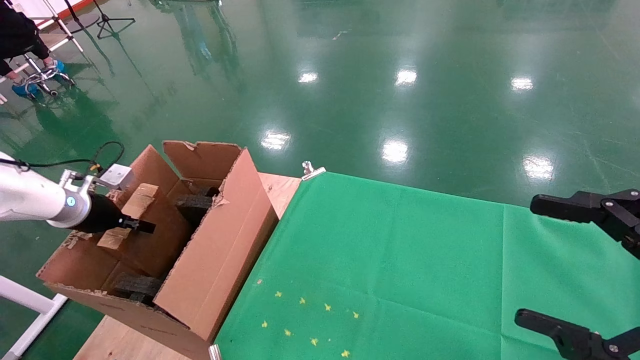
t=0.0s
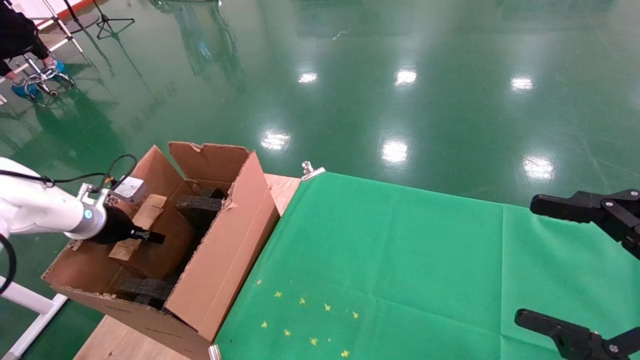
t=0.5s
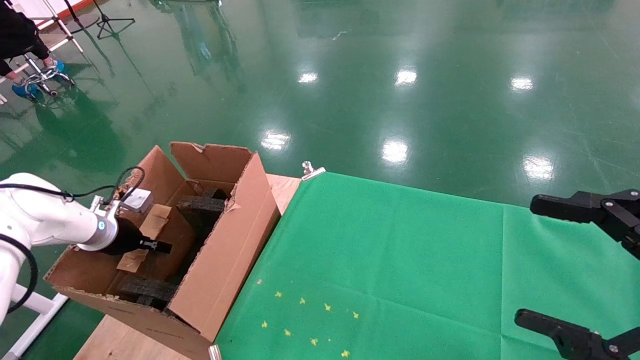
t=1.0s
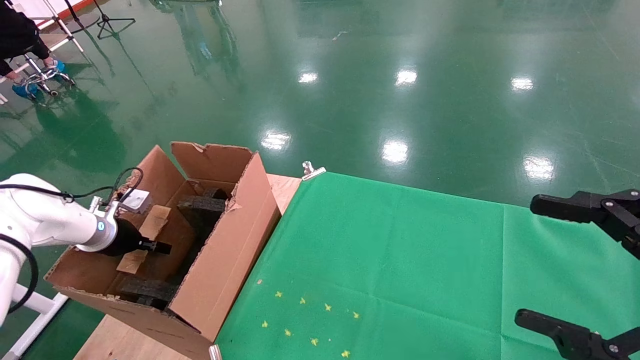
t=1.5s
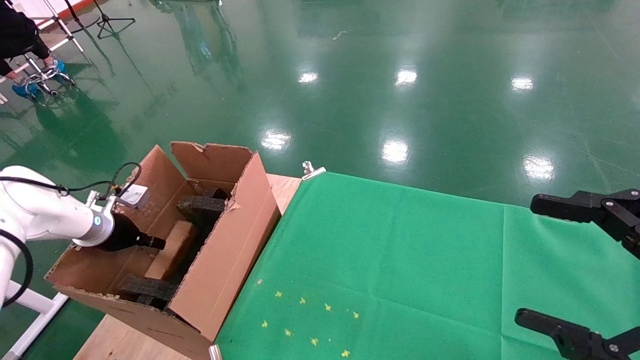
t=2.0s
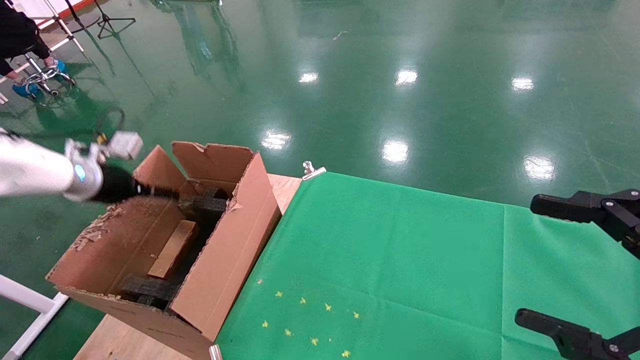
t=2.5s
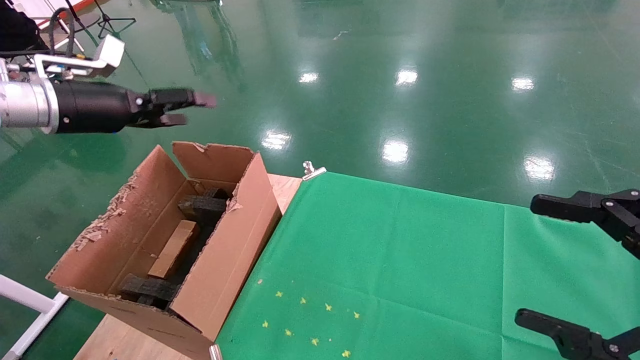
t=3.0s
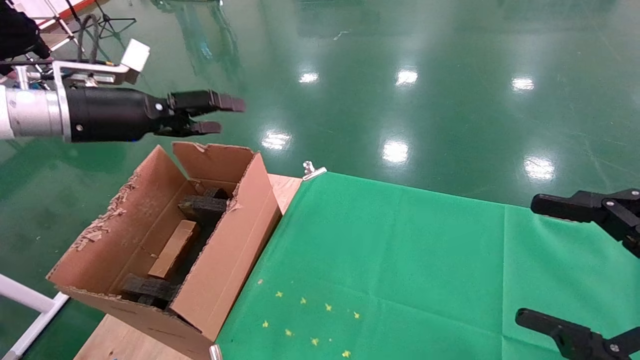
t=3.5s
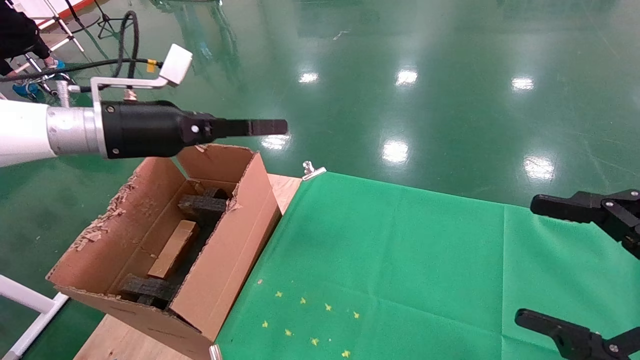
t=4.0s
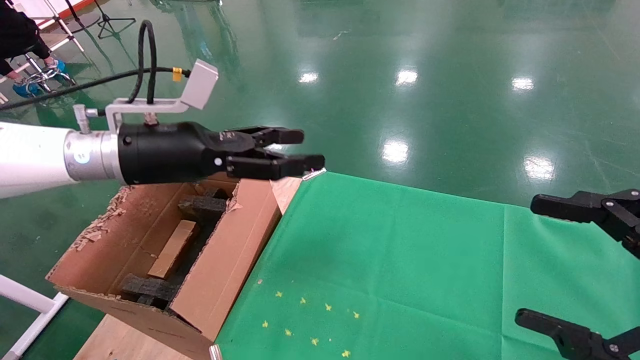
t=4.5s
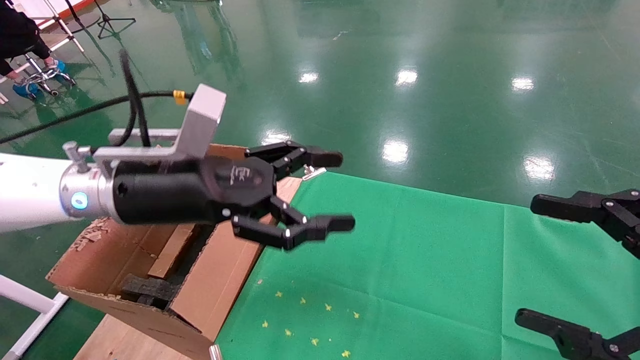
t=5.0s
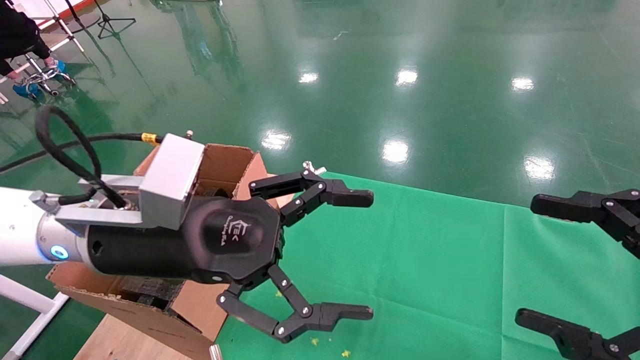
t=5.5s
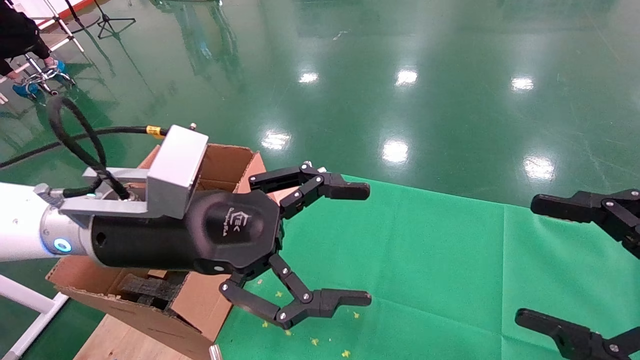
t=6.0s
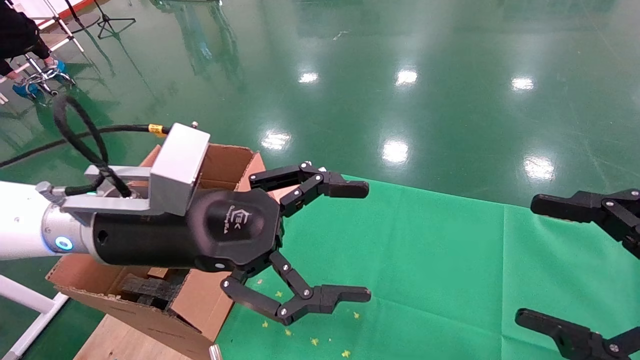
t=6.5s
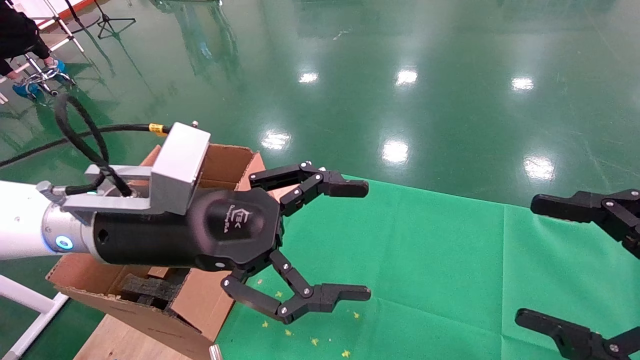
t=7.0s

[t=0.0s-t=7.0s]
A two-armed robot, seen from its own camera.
Task of the whole recording: using a robotic arm to pick up a cardboard box and palace it the carton.
Step, t=0.0s to t=2.5s: Place the mouse and the power cord paper box into the container.
t=0.0s to t=2.0s: The left gripper opens its fingers.
t=2.0s to t=3.5s: The left gripper moves upward and to the right, about 25 cm, and opens up.
t=3.5s to t=5.0s: The left gripper moves to the right and backward, roughly 20 cm.
t=5.0s to t=7.0s: The grippers stay close to where they were, moving slightly.

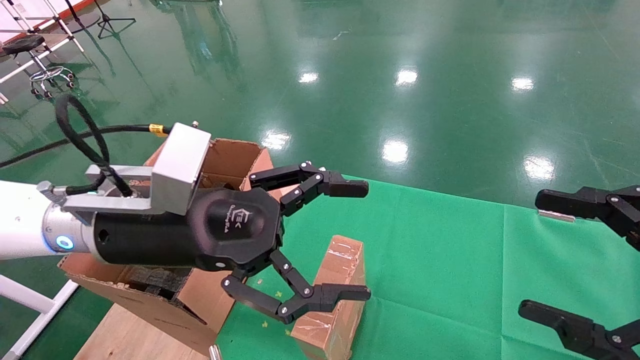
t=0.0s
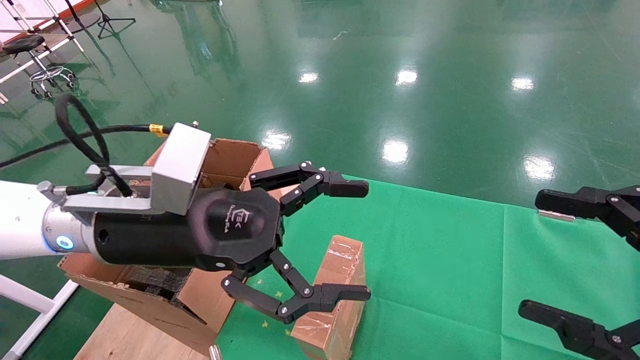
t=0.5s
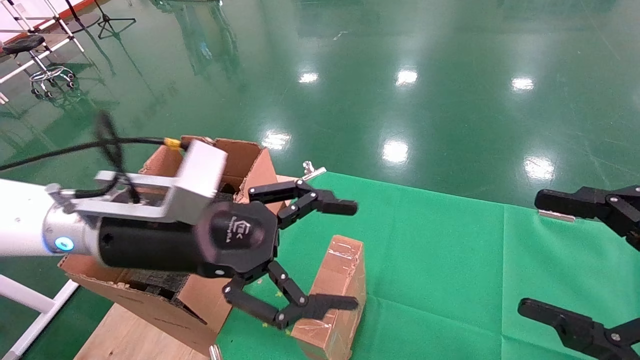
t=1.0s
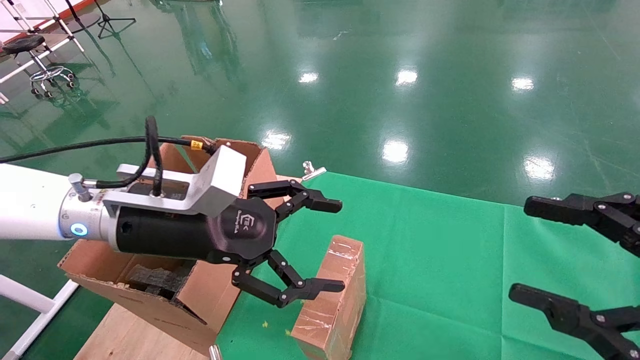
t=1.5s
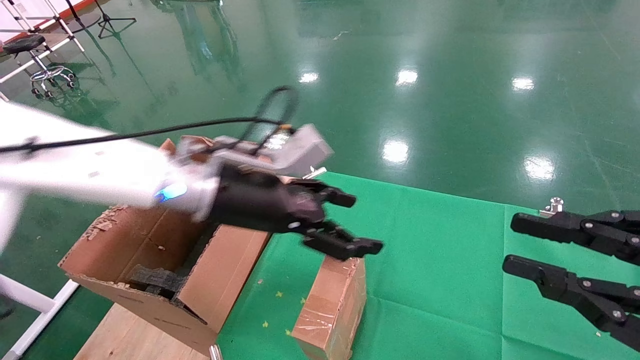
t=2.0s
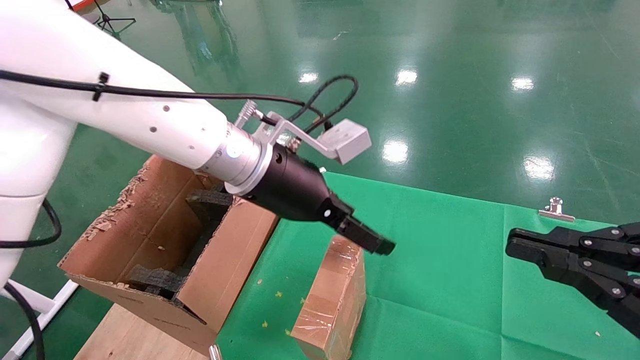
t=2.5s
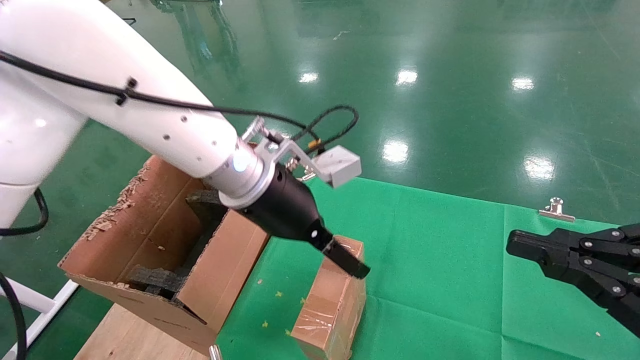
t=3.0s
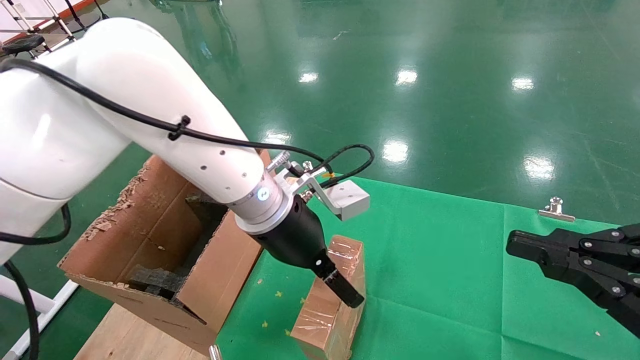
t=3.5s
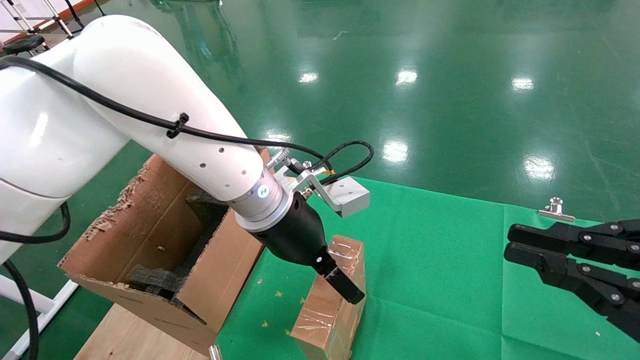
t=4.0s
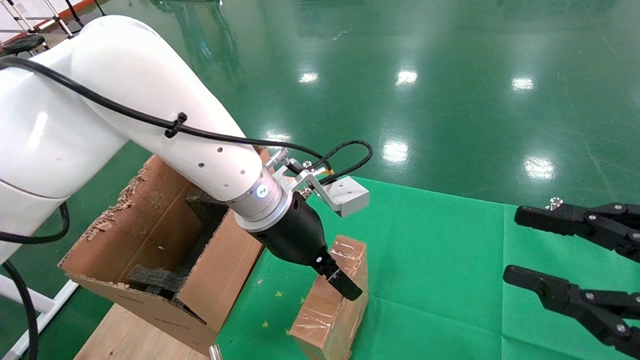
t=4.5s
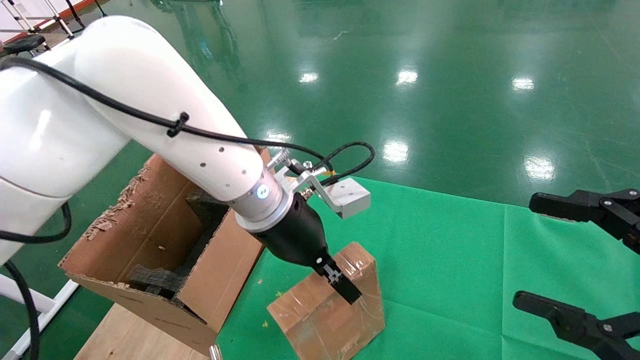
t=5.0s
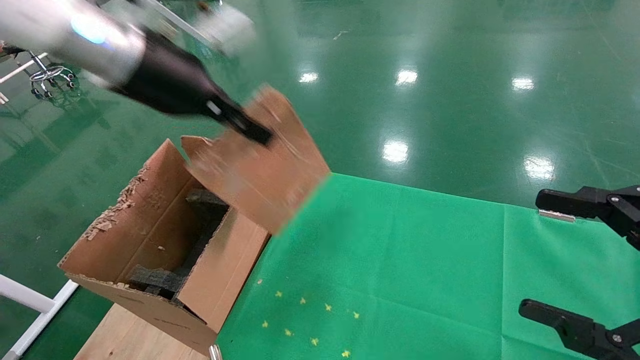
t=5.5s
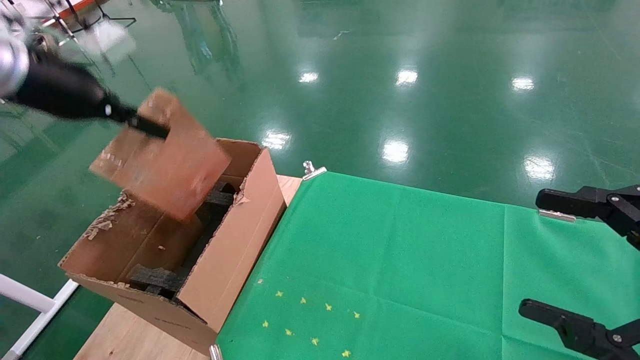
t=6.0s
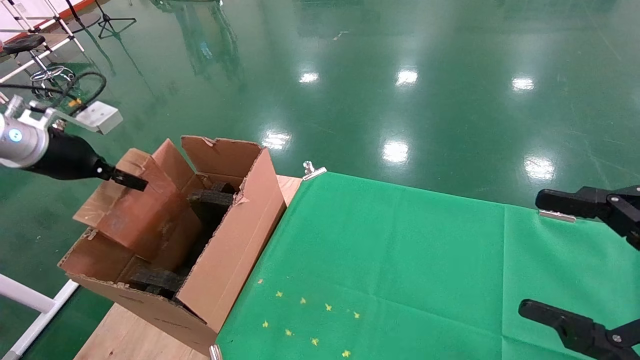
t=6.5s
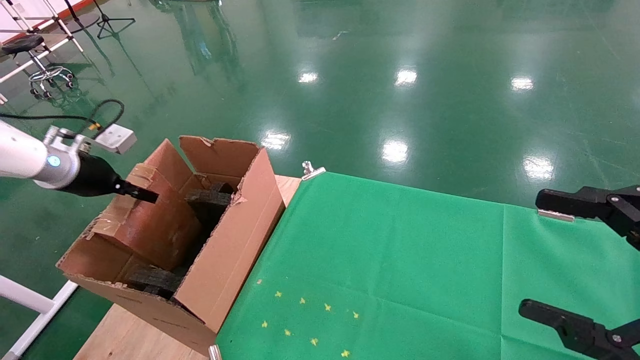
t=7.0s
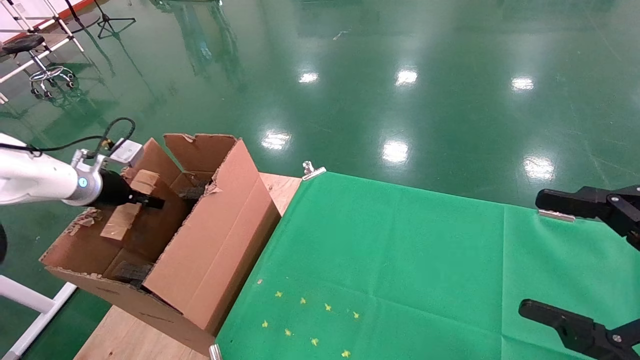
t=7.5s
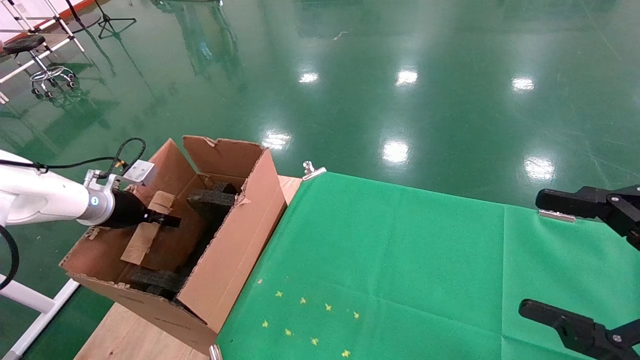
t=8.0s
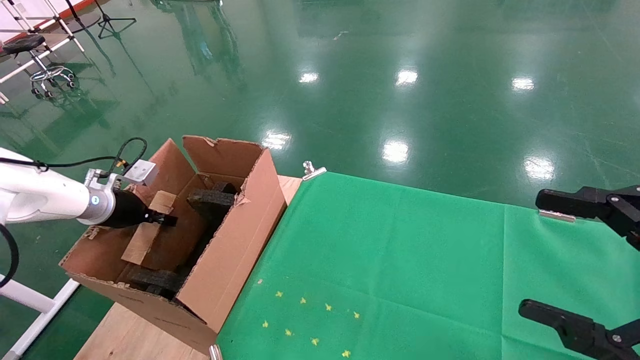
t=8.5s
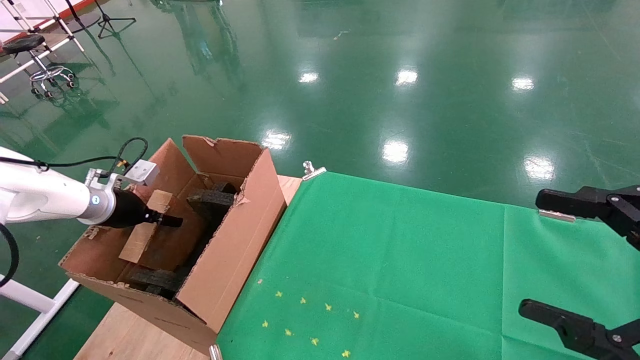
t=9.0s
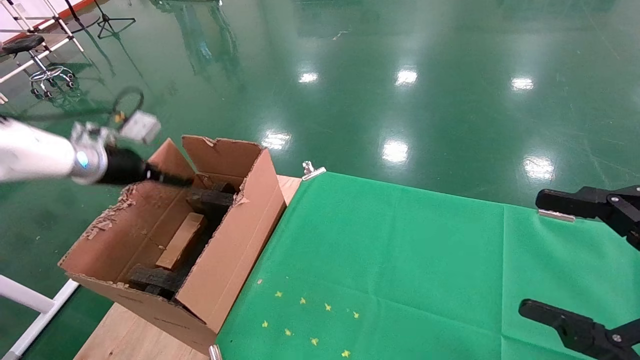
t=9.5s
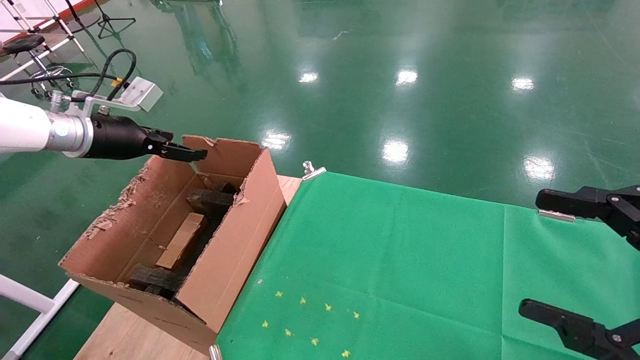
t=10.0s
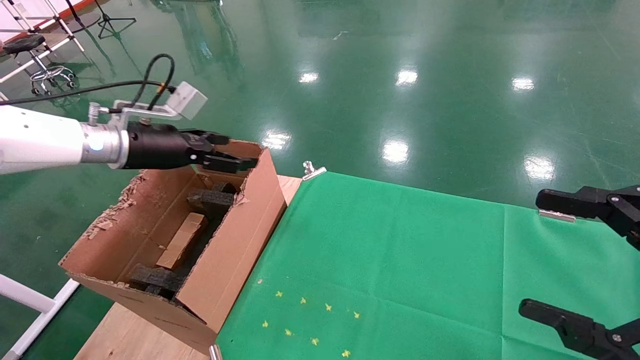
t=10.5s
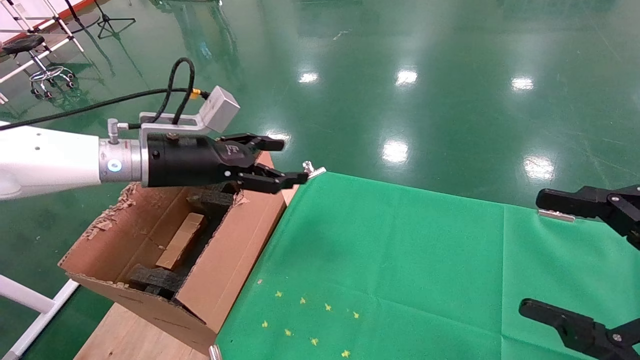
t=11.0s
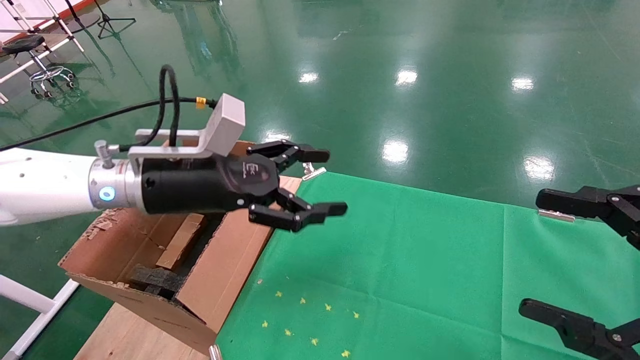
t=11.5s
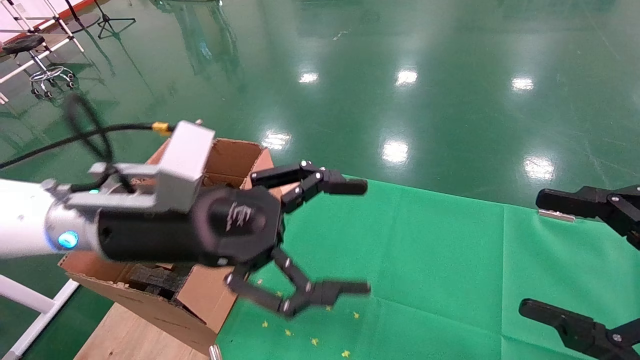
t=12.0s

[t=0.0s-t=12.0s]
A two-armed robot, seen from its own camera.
Task of the whole recording: using a robotic arm to pick up a cardboard box and palace it the carton.
Step, t=1.5s to t=4.5s: Pick up the mouse and the power cord paper box.
Step, t=5.0s to t=9.5s: Place the mouse and the power cord paper box into the container.
t=0.0s to t=2.0s: The right gripper closes. The left gripper travels forward by approximately 10 cm.
t=2.0s to t=4.0s: The left gripper goes some 5 cm to the right.
t=4.0s to t=6.0s: The right gripper opens up; the left gripper travels to the left and upward by approximately 30 cm, and closes its fingers.
t=6.0s to t=8.0s: The left gripper is displaced downward, to the left and forward by about 25 cm.
t=8.0s to t=10.0s: The left gripper heads upward, covering about 15 cm, and opens up.
t=10.0s to t=12.0s: The left gripper is displaced to the right and backward by approximately 25 cm.

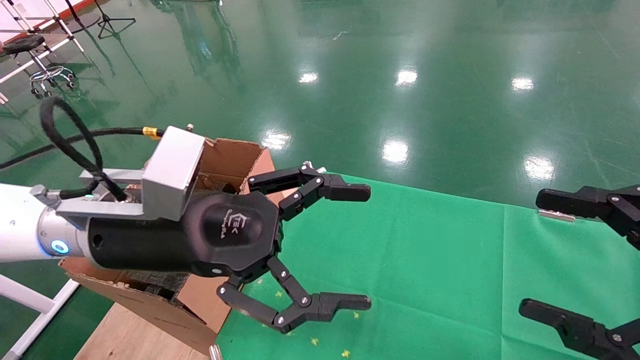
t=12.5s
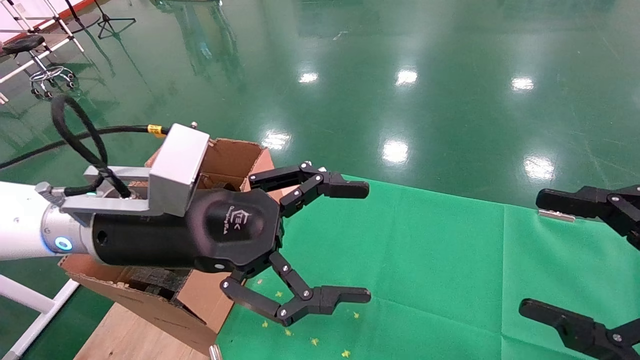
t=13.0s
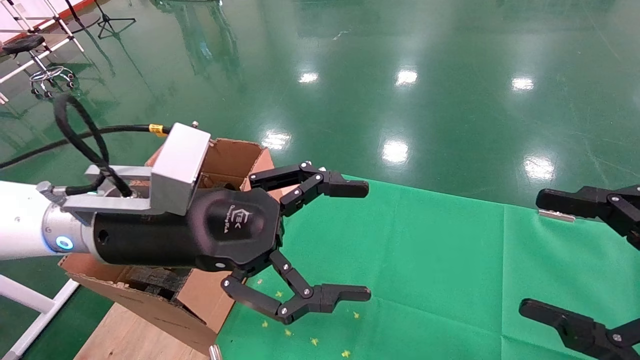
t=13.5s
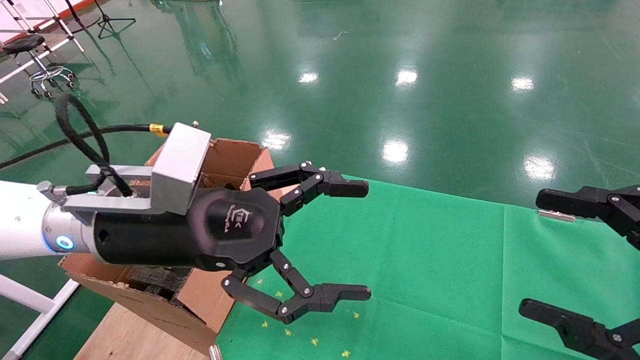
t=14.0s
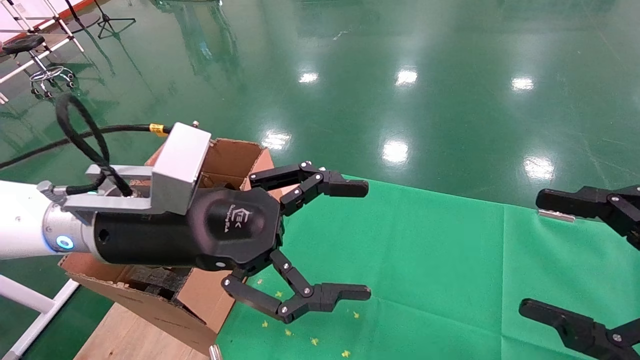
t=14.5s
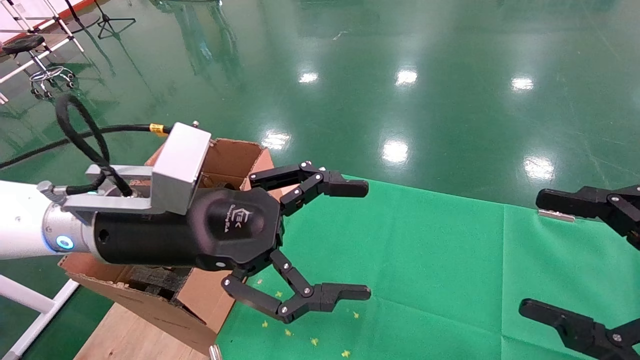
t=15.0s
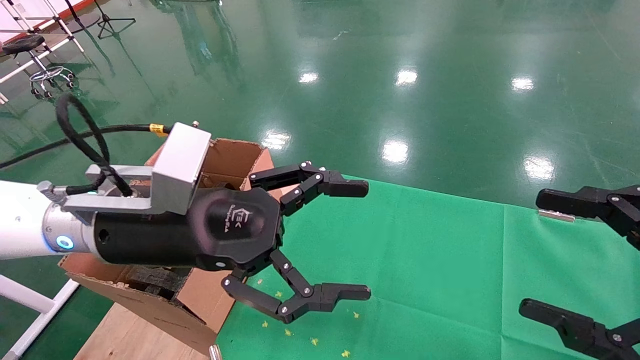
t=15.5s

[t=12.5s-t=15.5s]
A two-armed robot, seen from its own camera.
Task of the whole recording: using a robotic arm to pick up a cardboard box and palace it the carton.
t=12.5s to t=15.5s: Both grippers stay put.
